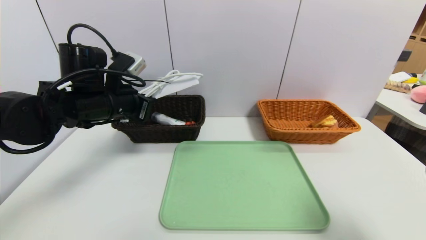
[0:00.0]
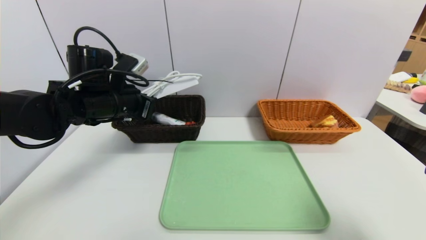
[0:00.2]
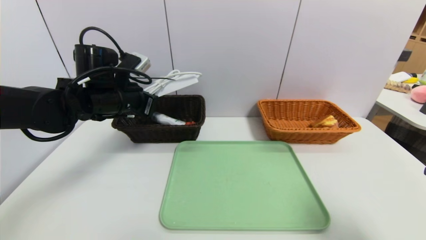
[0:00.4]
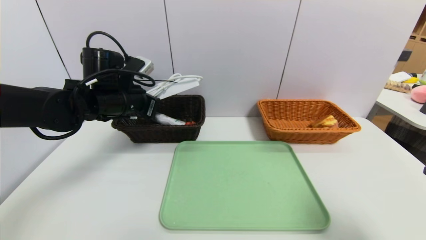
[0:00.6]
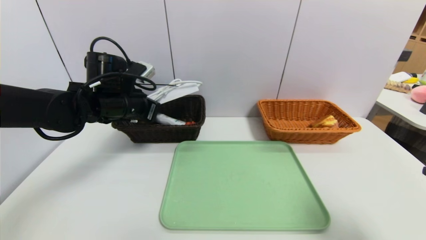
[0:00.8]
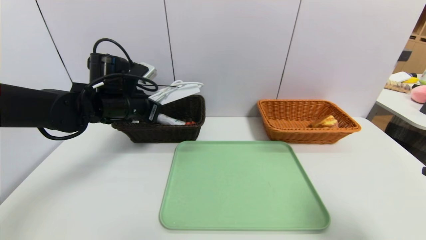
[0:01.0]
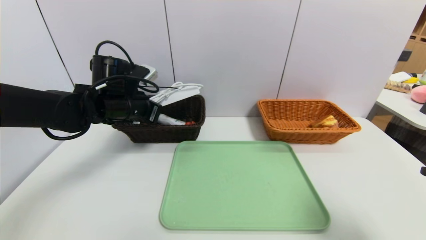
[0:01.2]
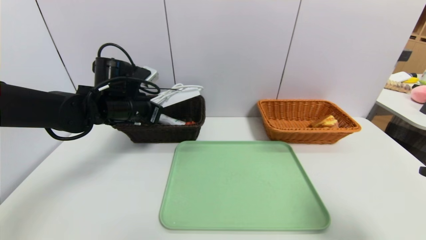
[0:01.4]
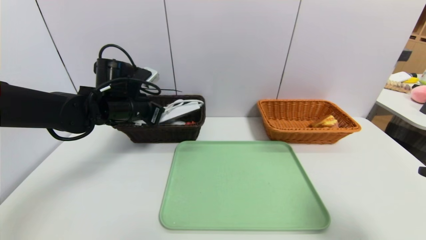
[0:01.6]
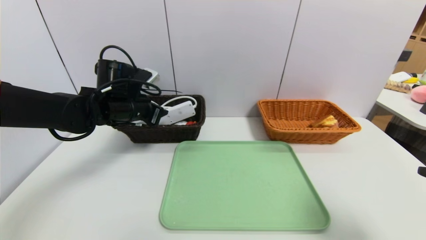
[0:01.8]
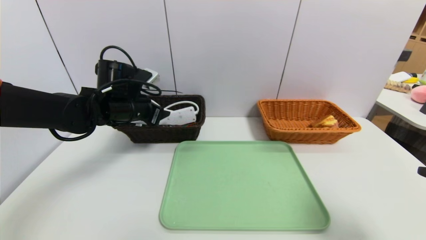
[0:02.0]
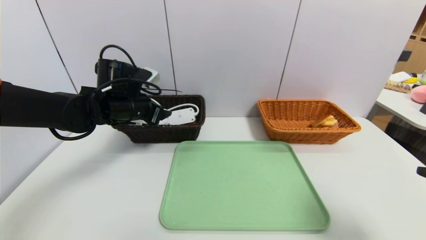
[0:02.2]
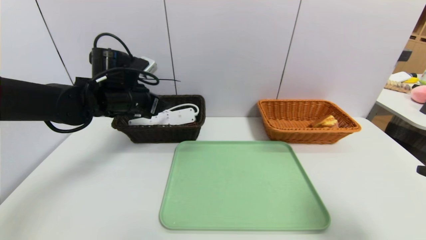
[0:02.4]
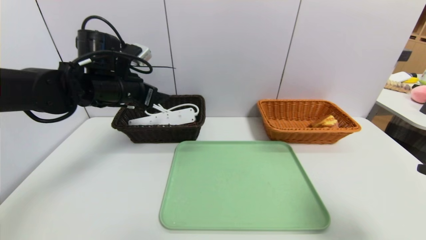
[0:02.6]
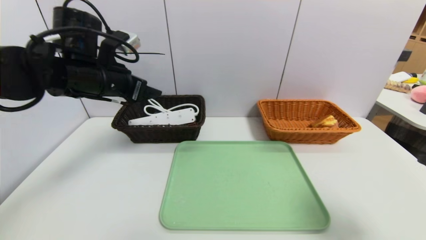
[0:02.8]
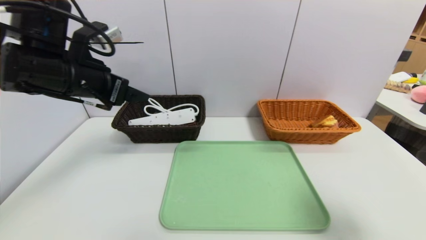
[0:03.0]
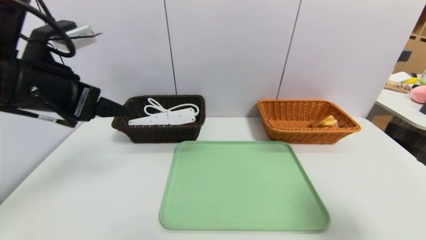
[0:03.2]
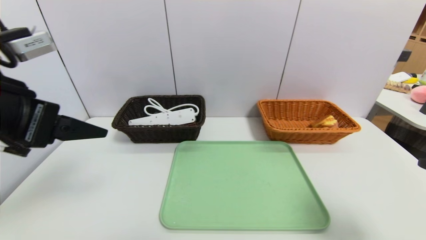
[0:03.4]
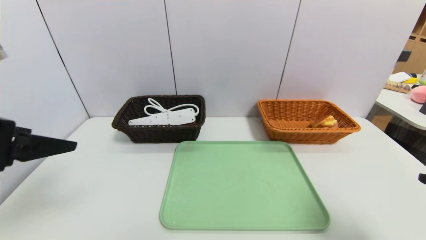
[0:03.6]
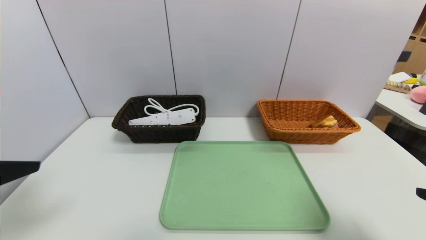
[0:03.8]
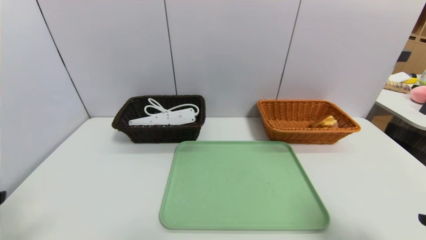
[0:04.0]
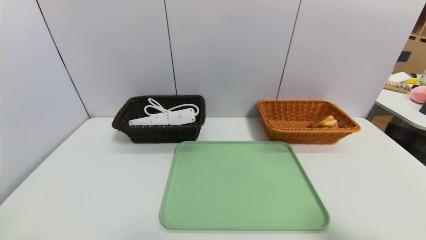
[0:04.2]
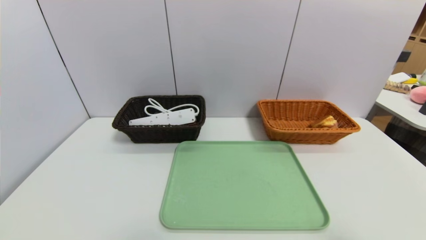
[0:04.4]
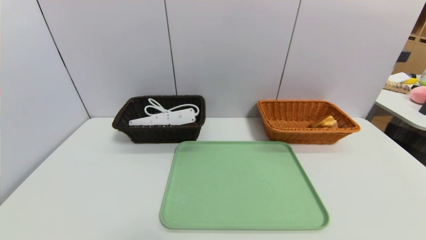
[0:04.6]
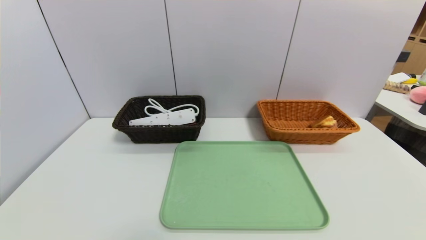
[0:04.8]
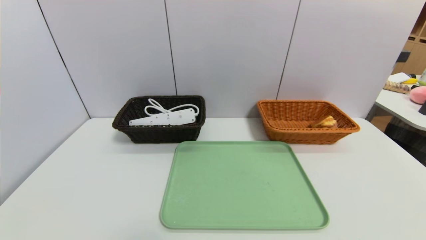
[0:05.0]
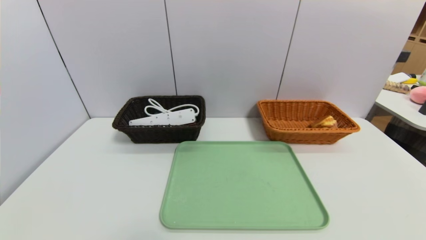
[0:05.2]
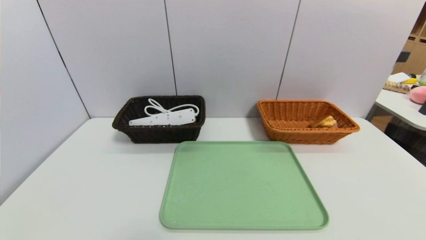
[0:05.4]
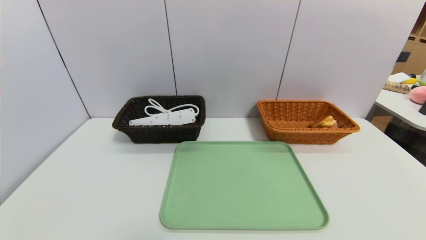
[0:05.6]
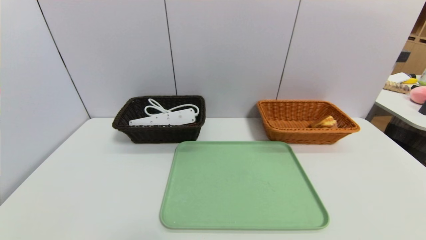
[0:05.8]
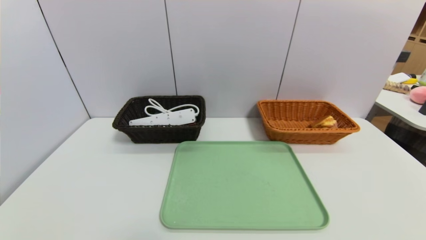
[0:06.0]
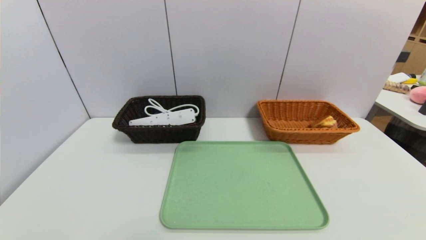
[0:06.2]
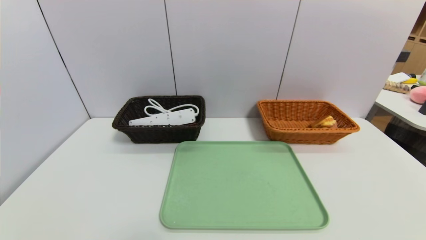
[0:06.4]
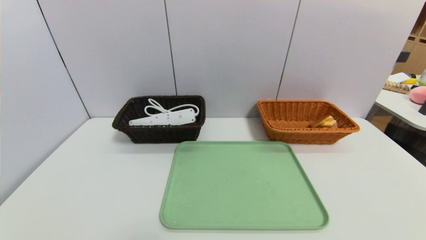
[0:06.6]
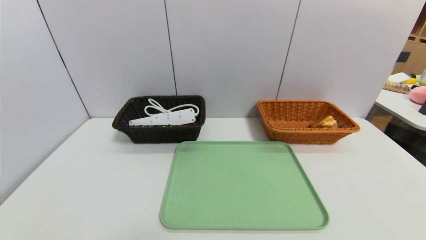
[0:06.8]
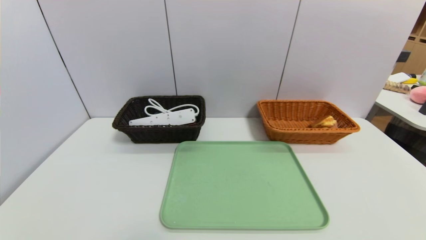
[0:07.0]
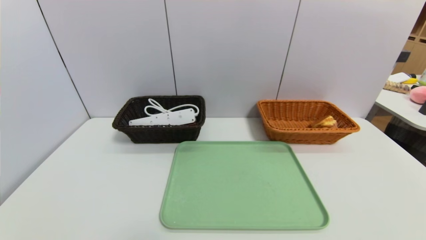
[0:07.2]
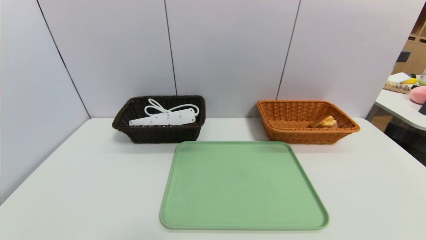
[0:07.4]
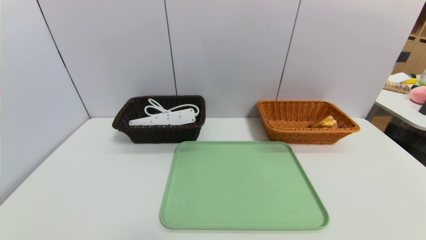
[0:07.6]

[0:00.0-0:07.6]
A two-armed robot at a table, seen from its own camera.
Task of the whole recording: place the food in the right basket with the right gripper, and place the non food items in the left basket with the left gripper.
Step, 0:00.0 to 0:03.4: Grasp the power strip and put it in the left basket.
0:00.0 to 0:01.6: The left gripper travels forward by about 5 cm.
0:01.6 to 0:03.0: The left gripper travels upward and backward by about 15 cm, and opens its fingers.
0:03.0 to 0:04.6: The left gripper shifts some 30 cm backward; the right gripper moves backward and downward, about 10 cm.
